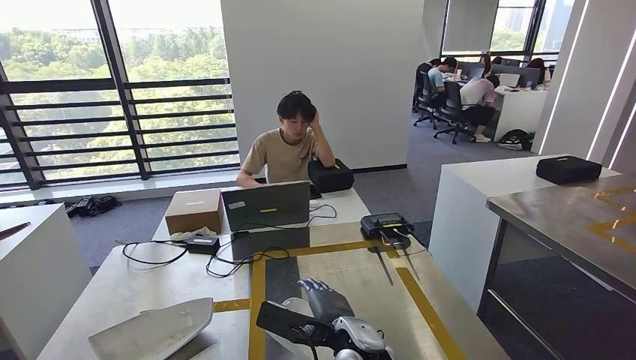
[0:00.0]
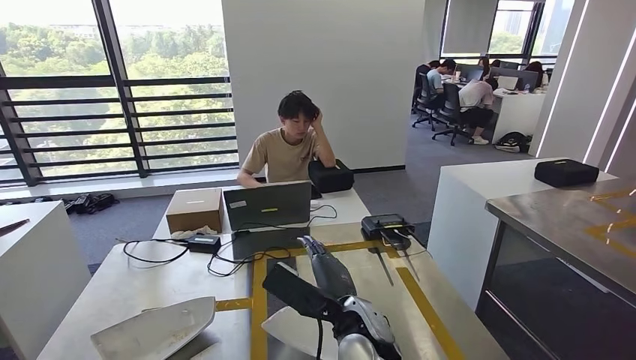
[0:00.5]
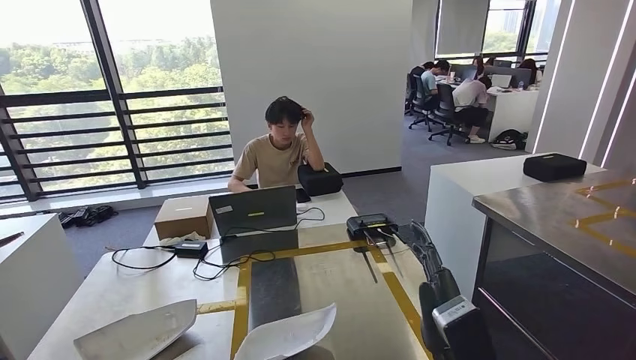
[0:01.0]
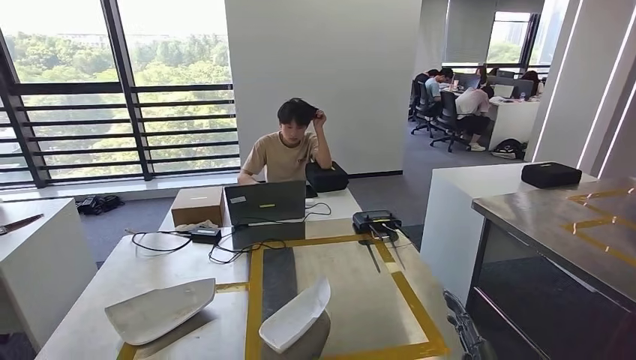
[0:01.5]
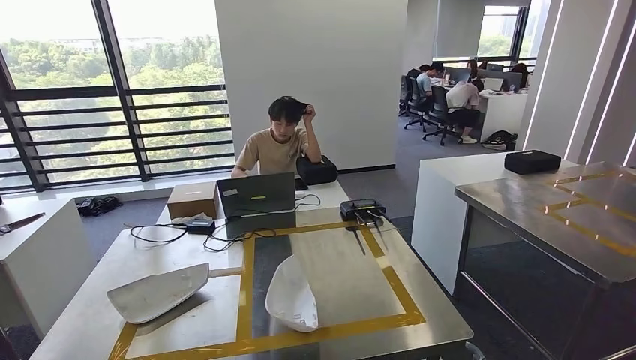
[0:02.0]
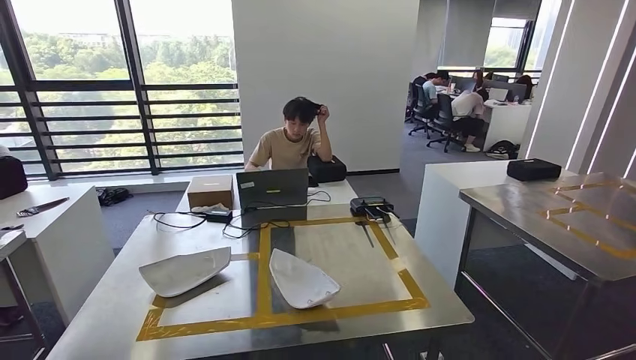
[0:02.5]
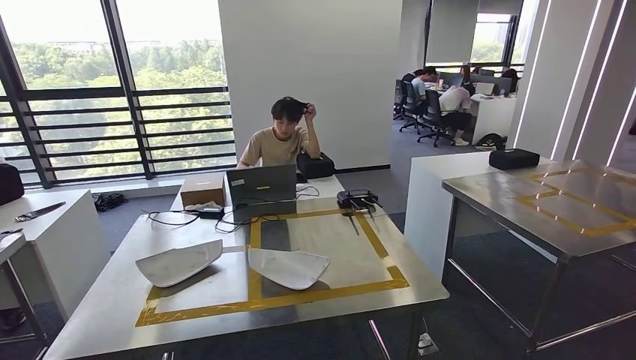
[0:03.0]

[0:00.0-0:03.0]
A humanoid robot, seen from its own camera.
Step, 0:01.0 to 0:03.0: Return to the initial position at the workbench.
